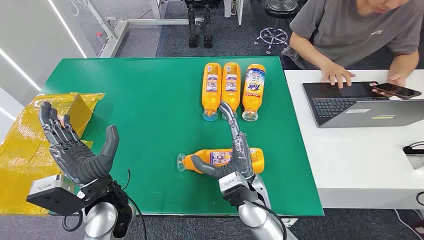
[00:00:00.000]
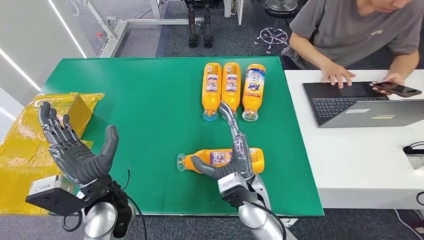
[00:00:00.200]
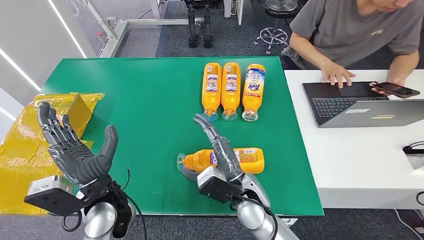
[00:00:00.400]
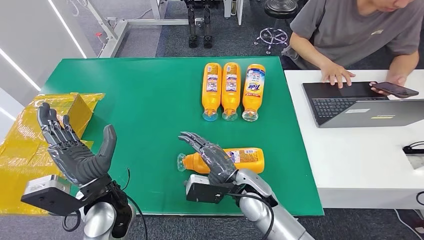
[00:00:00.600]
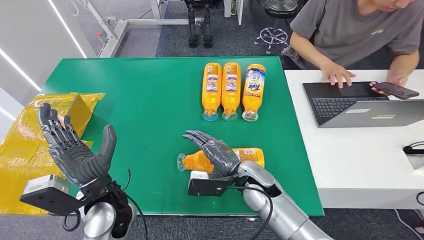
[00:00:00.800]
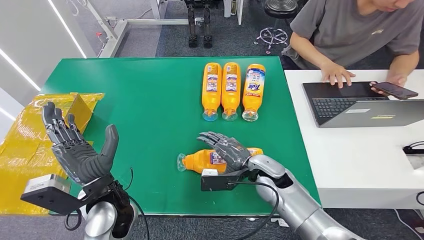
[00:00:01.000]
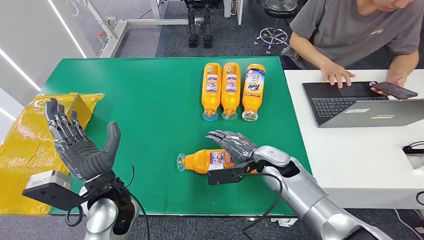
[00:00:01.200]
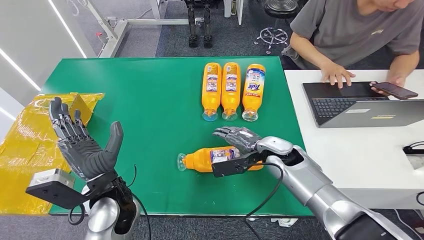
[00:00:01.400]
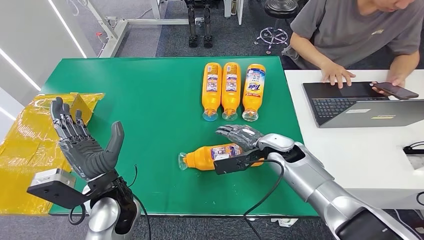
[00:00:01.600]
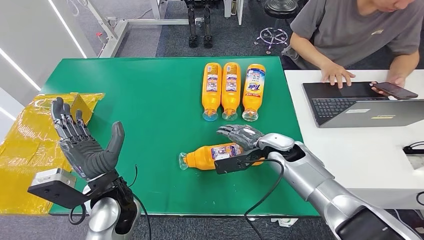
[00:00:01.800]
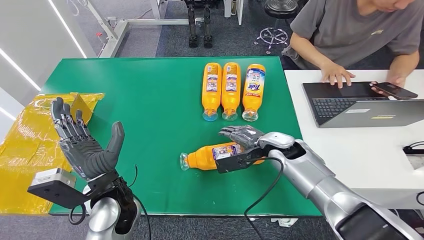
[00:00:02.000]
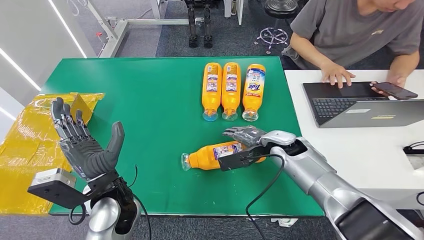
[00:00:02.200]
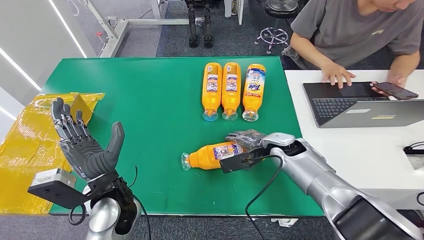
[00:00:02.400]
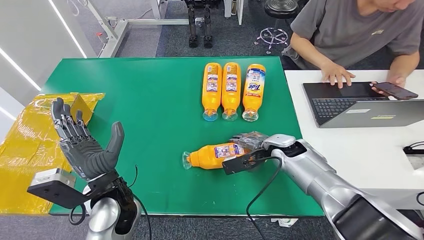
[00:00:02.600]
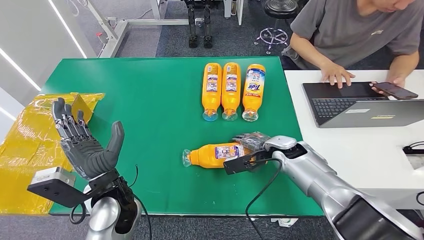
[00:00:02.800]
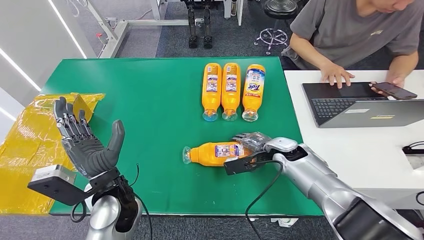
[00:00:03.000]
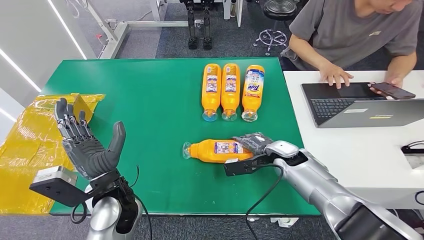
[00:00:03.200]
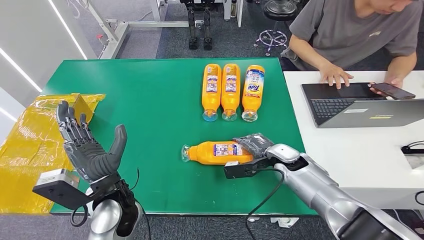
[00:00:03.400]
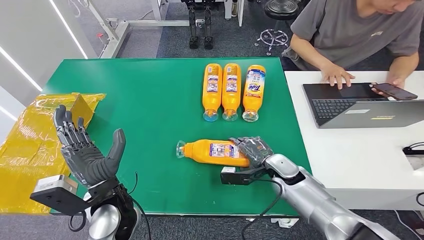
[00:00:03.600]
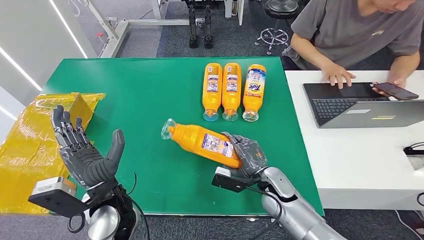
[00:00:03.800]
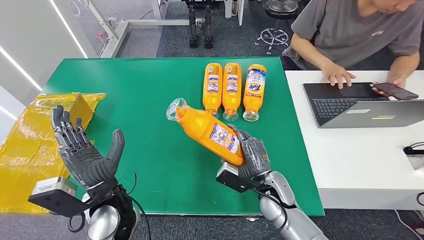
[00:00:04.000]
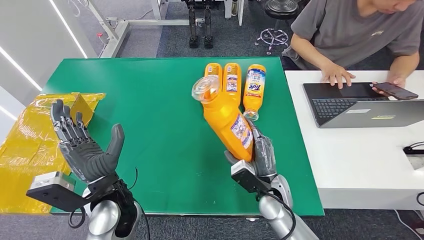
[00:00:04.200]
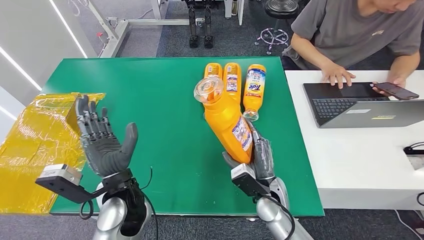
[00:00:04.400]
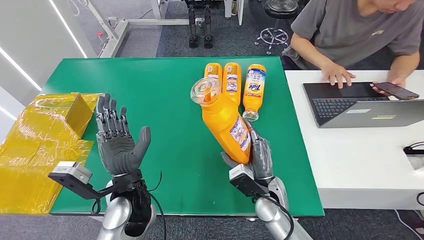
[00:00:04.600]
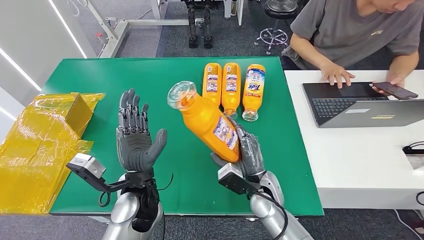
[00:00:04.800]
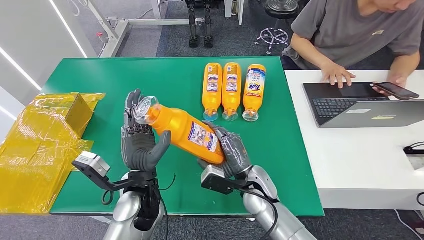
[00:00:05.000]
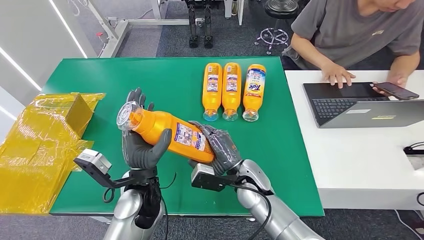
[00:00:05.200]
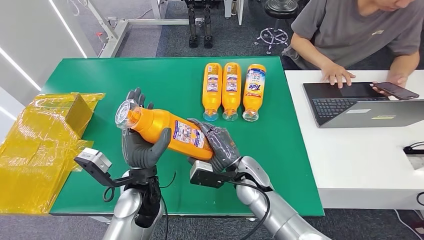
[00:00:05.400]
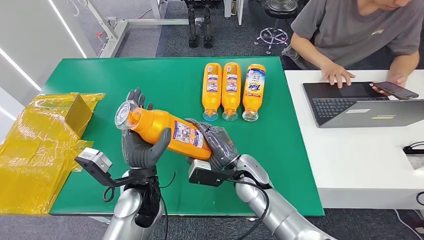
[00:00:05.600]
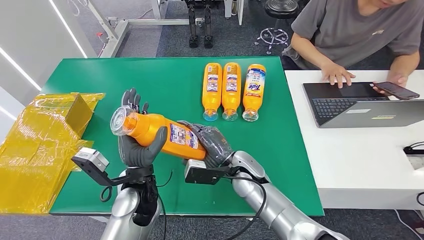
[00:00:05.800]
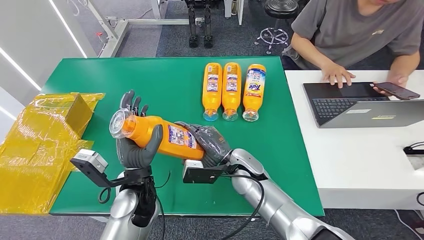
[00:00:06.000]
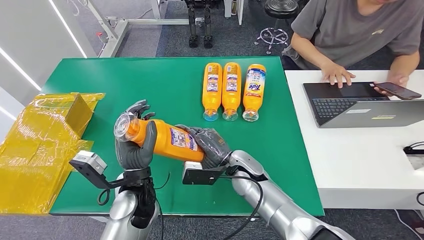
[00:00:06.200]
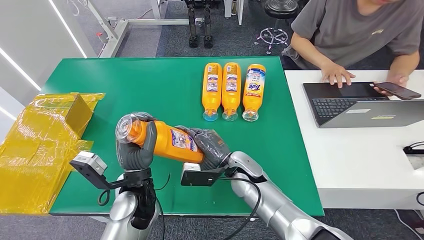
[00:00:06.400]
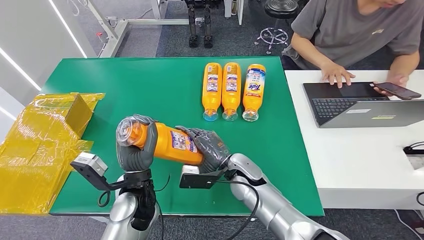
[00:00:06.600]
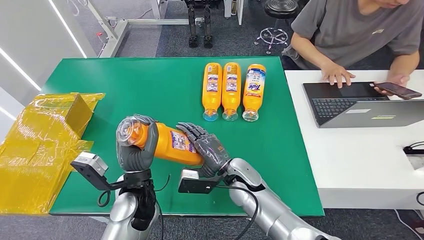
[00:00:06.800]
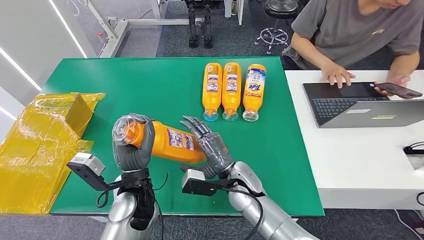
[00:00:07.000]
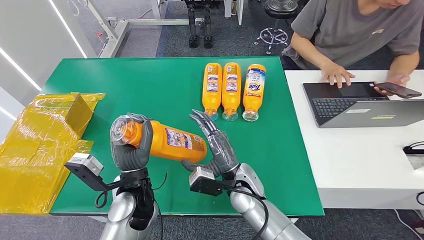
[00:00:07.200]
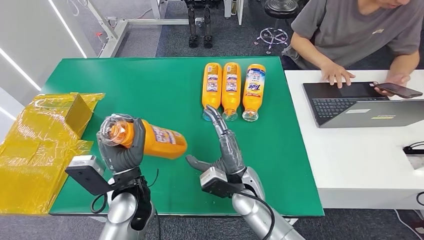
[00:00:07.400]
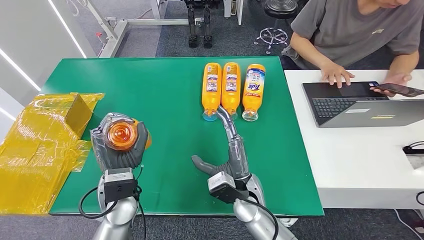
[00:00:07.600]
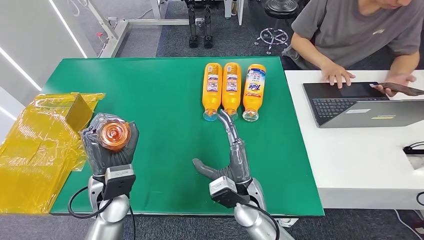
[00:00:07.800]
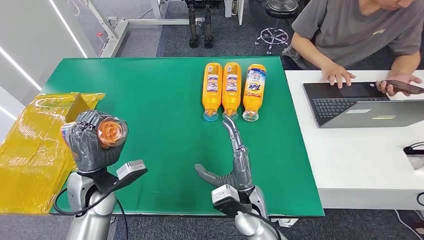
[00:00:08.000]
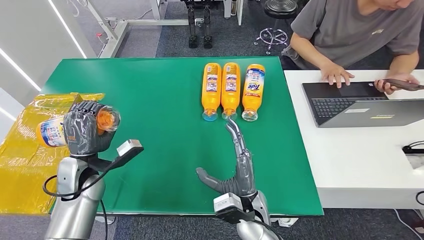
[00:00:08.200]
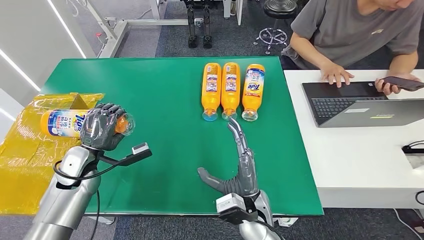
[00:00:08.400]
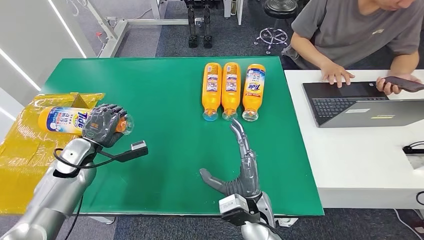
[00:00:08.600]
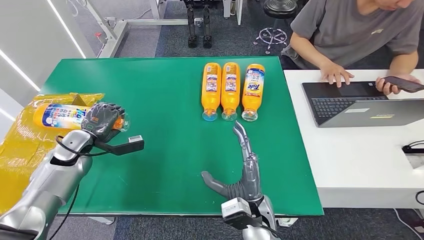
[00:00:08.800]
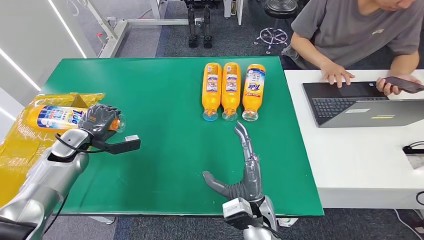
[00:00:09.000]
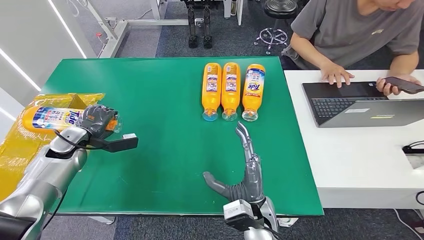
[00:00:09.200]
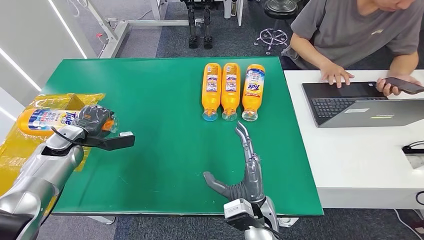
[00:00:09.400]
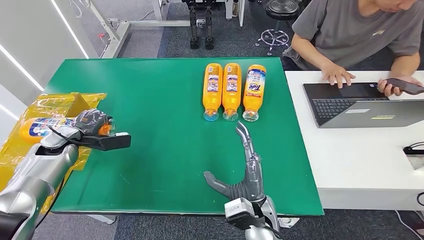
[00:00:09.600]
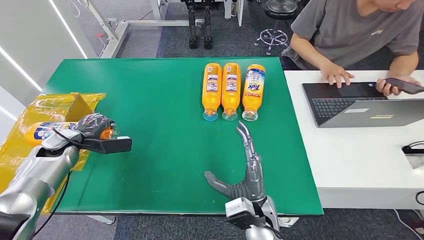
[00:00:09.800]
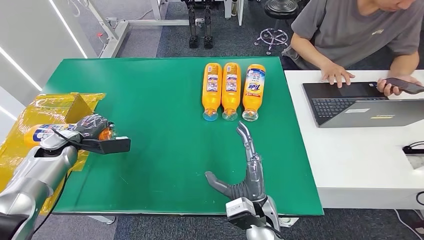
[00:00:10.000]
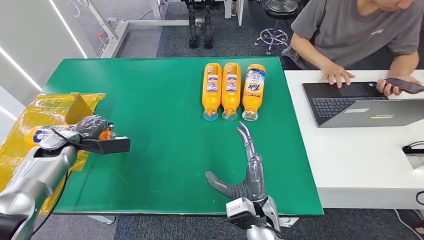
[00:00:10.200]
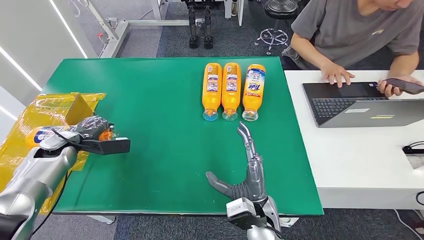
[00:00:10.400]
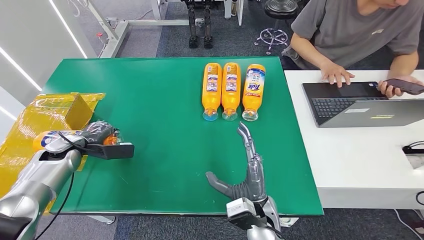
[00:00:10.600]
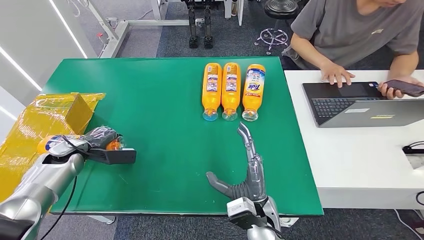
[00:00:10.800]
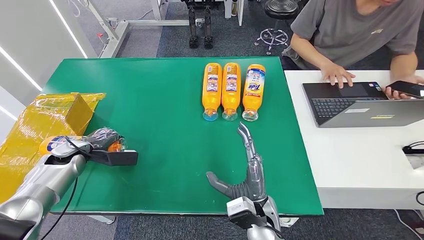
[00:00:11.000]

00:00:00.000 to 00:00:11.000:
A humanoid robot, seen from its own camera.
Step, 00:00:00.000 to 00:00:04.000: Pick up the bottle from the table.
00:00:01.600 to 00:00:03.200: The right hand moves about 5 cm.
00:00:04.800 to 00:00:06.200: The right hand shifts by roughly 5 cm.
00:00:06.200 to 00:00:07.800: The left hand travels to the left by approximately 5 cm, while the right hand is displaced backward by some 5 cm.
00:00:07.800 to 00:00:09.400: The left hand moves to the left and forward, roughly 25 cm.

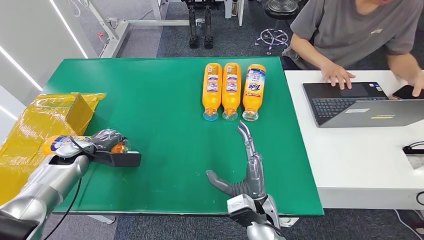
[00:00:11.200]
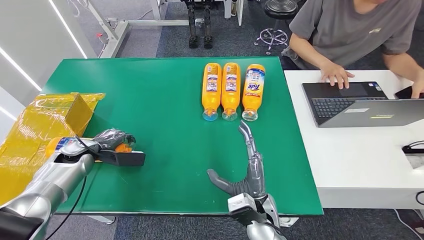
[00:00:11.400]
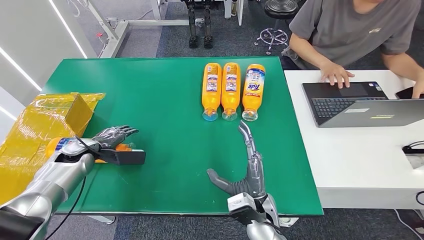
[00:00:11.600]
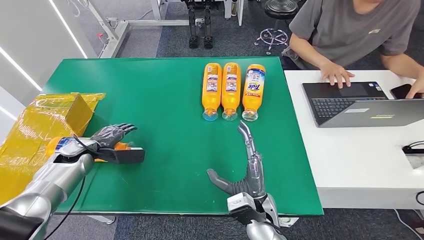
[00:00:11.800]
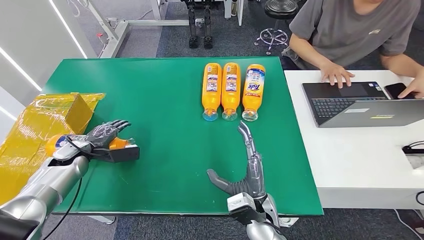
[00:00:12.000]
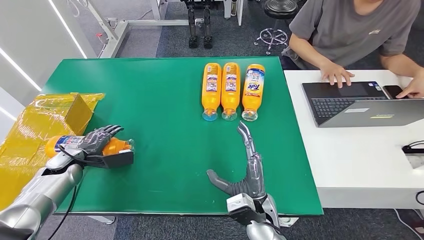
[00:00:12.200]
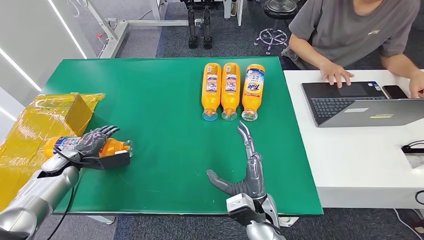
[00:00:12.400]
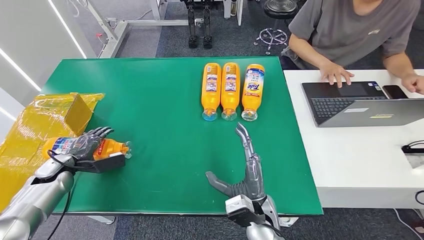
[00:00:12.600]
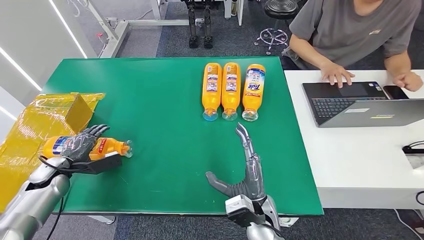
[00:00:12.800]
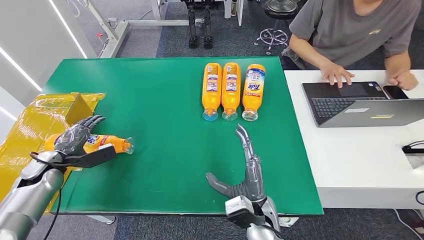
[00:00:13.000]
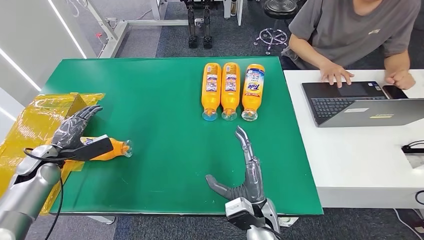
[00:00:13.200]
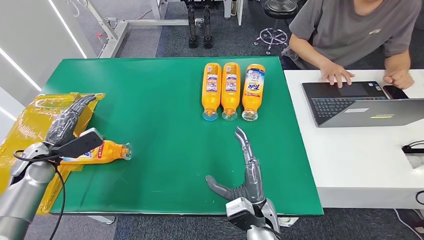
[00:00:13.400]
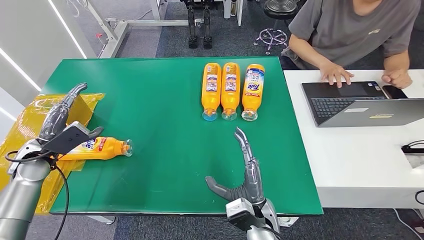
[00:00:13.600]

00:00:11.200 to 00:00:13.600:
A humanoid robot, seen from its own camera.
Step, 00:00:11.200 to 00:00:13.600: Turn the bottle to the front side.
00:00:11.200 to 00:00:12.400: The left hand ends up about 5 cm from where it was.
00:00:12.400 to 00:00:13.600: The left hand shifts about 10 cm upward.
